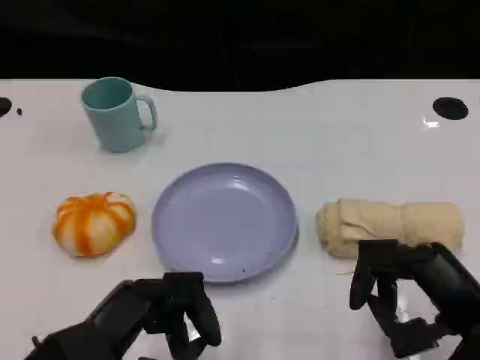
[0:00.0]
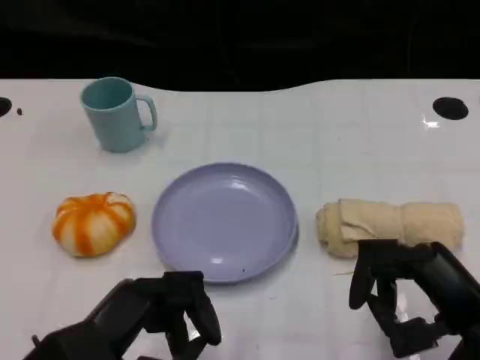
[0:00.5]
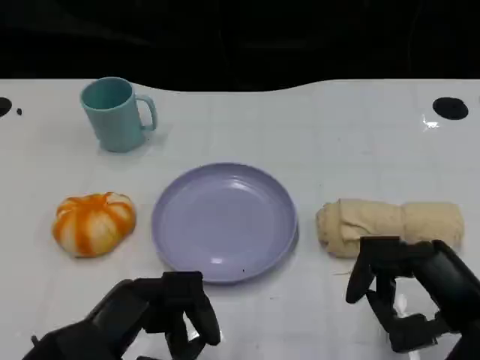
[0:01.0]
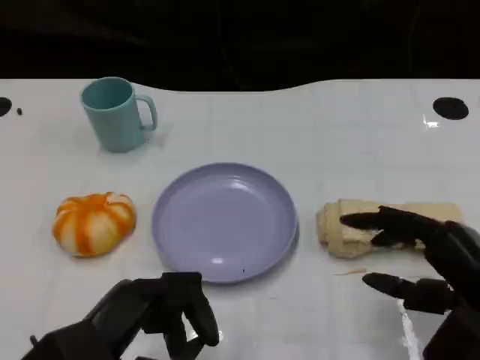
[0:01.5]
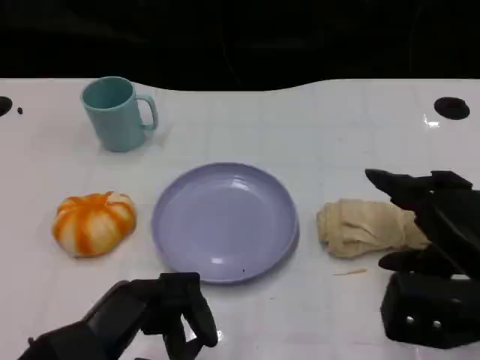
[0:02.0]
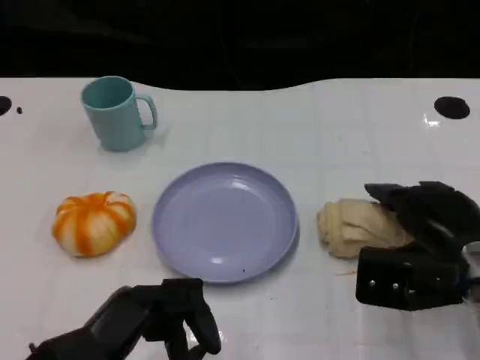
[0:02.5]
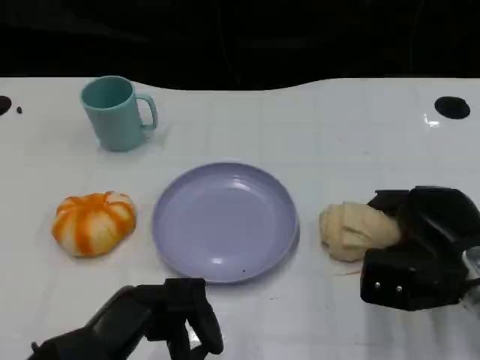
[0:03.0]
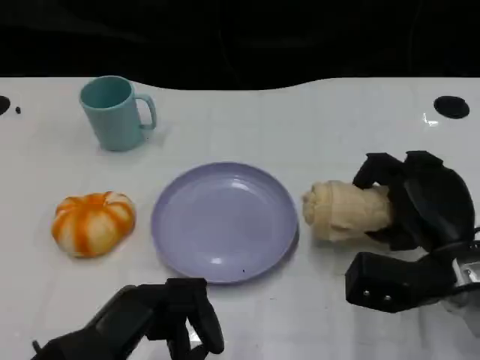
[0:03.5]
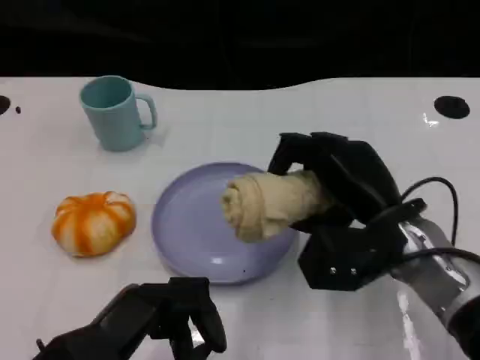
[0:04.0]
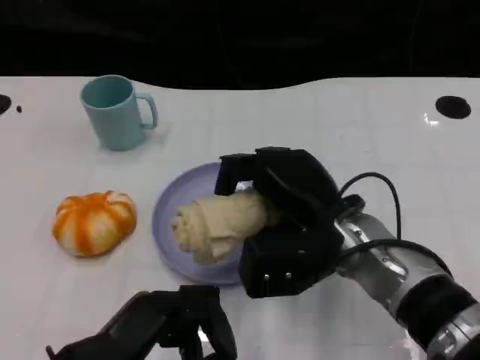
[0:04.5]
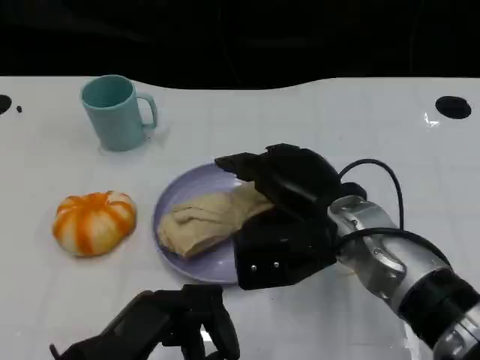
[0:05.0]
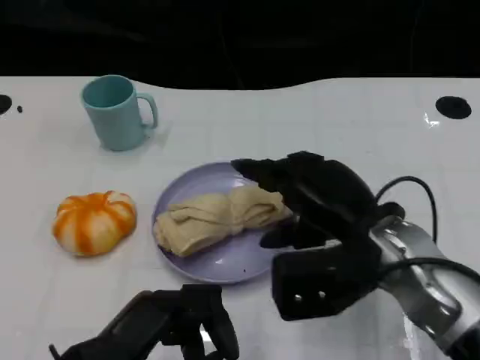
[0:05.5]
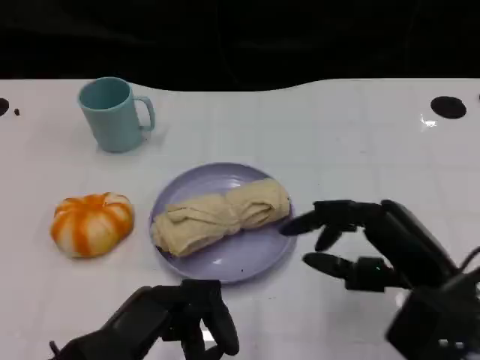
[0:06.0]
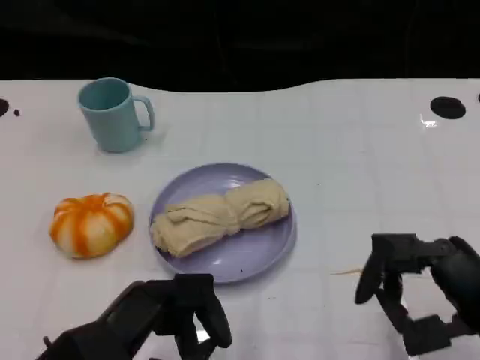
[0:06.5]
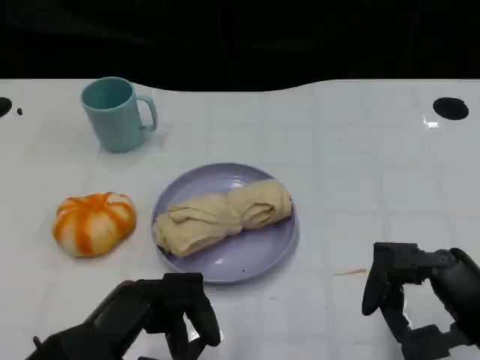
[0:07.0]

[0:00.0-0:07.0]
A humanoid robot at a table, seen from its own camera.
Task of the whole recording: Grasp the towel on the left side of the plate with the left hand and place it into the plate.
0:00.0 to 0:02.0: The right hand ends up some 5 cm from where it was.
0:02.0 to 0:03.5: The right hand is displaced downward and forward by approximately 10 cm.
0:03.5 to 0:05.0: The right hand shifts some 10 cm to the left and upward.
0:05.0 to 0:07.0: The right hand goes roughly 20 cm to the right and backward.

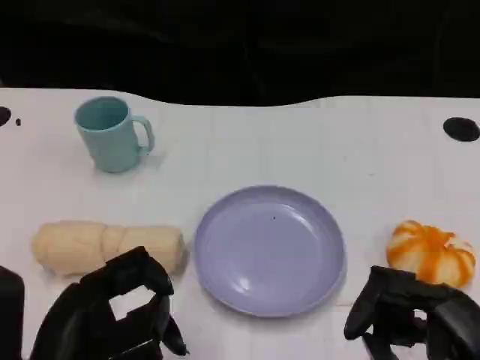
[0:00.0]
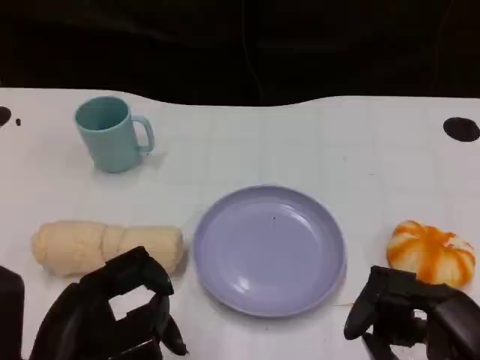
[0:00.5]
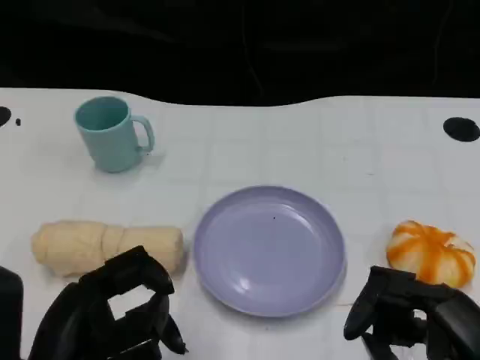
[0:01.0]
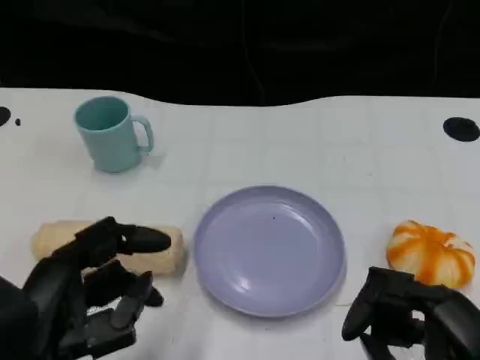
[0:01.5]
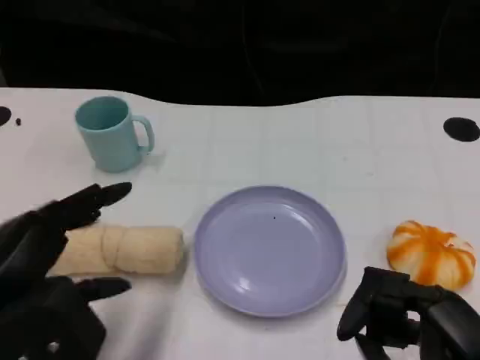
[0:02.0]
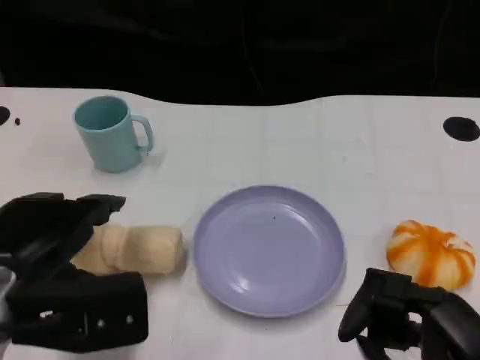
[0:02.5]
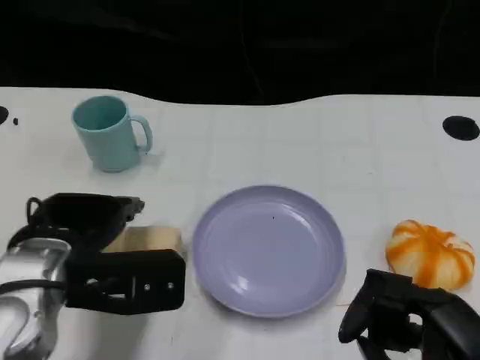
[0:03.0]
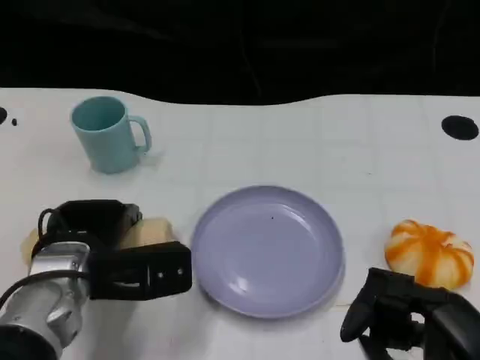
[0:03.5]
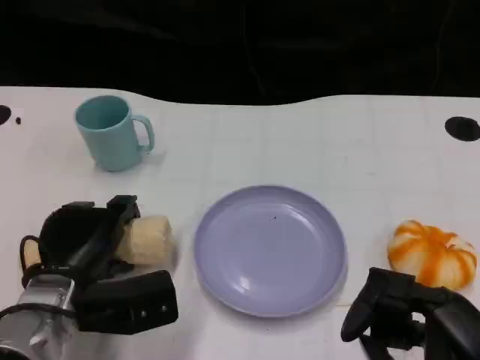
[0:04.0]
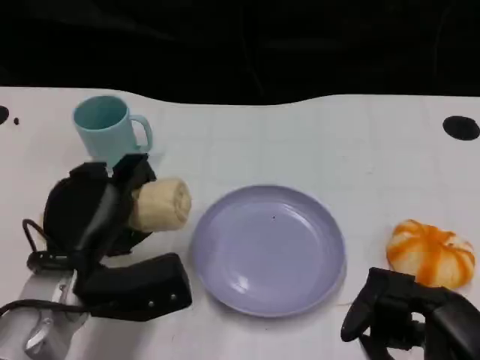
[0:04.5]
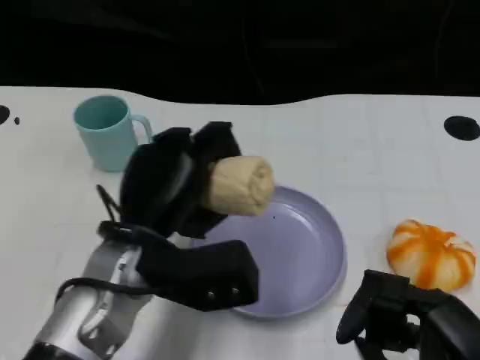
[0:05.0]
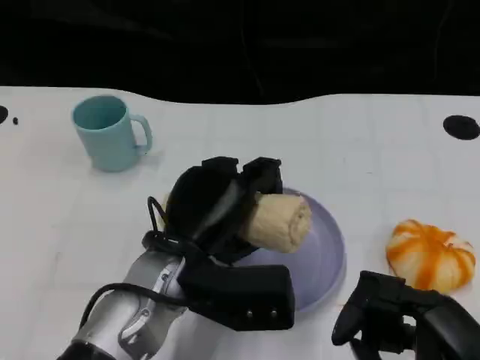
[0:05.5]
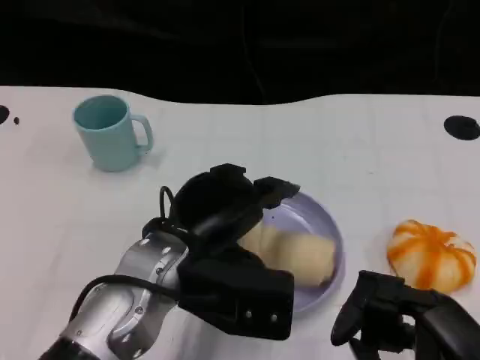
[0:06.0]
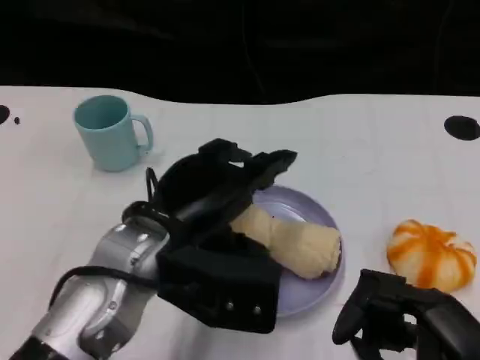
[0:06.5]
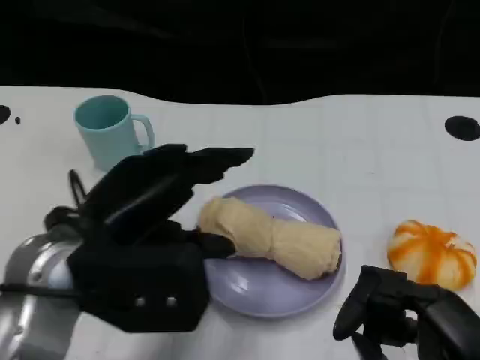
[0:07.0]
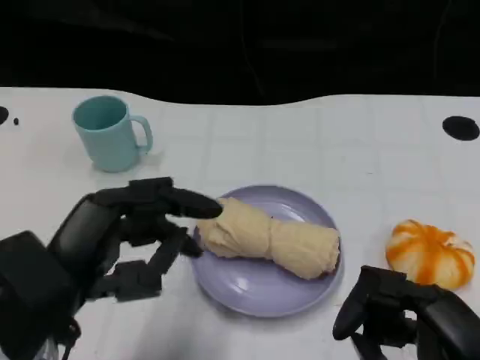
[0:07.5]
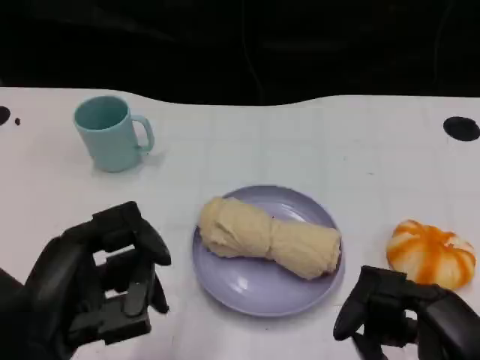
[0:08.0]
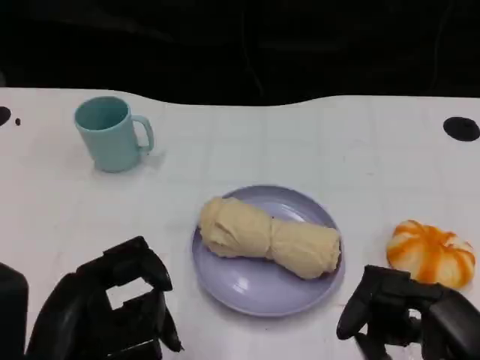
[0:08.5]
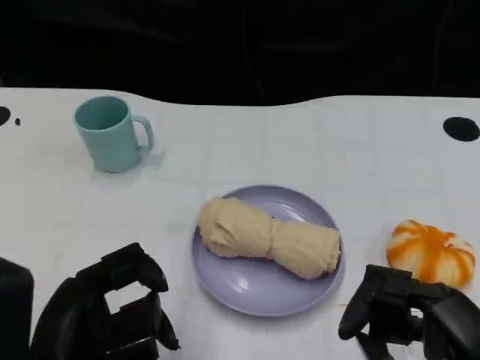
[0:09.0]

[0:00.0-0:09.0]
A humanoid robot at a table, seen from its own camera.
Task of the whole recording: Grasp the towel on the left side of the plate with the left hand and place it into the plate.
0:00.0 to 0:02.0: The left hand moves about 5 cm.
0:02.0 to 0:04.5: The left hand moves forward, downward and to the right, approximately 15 cm.
0:04.5 to 0:07.0: The left hand goes approximately 10 cm upward.
0:07.0 to 0:09.0: The left hand shifts about 10 cm backward.
